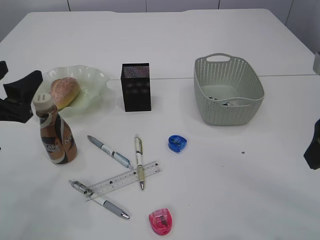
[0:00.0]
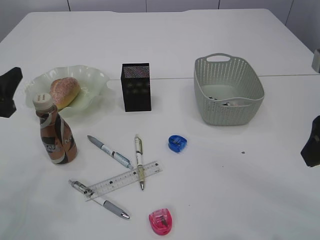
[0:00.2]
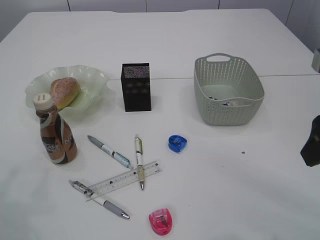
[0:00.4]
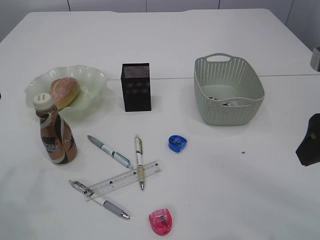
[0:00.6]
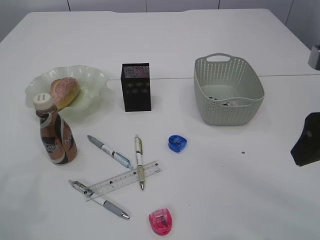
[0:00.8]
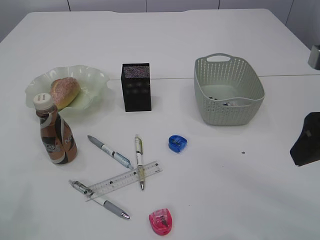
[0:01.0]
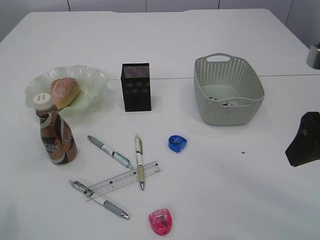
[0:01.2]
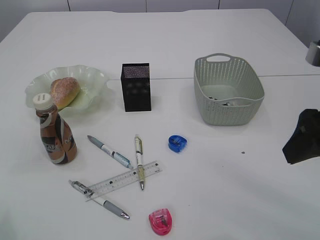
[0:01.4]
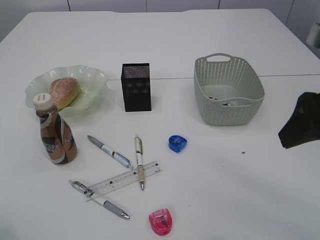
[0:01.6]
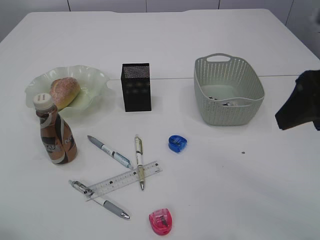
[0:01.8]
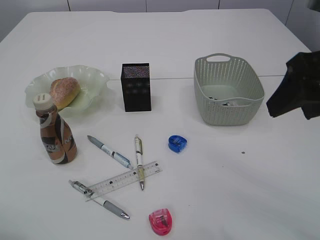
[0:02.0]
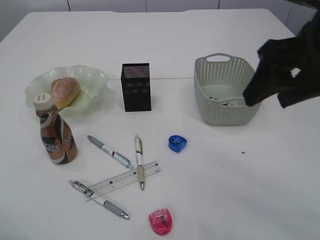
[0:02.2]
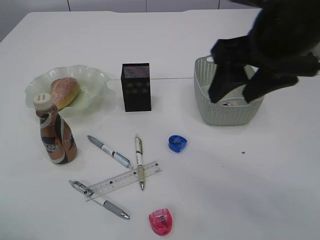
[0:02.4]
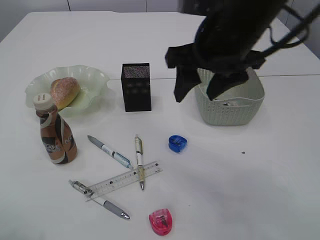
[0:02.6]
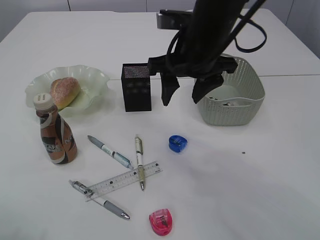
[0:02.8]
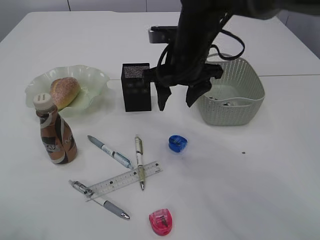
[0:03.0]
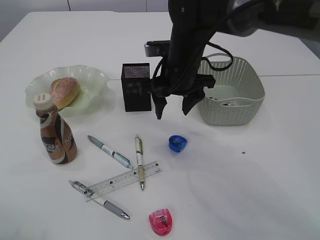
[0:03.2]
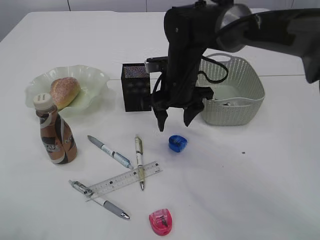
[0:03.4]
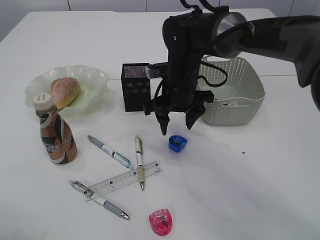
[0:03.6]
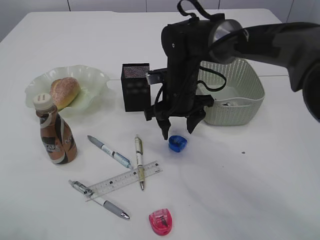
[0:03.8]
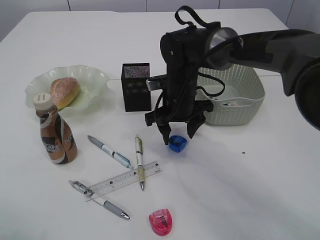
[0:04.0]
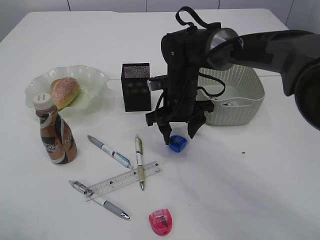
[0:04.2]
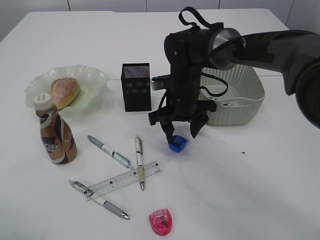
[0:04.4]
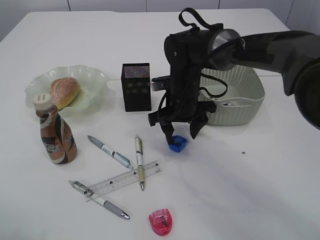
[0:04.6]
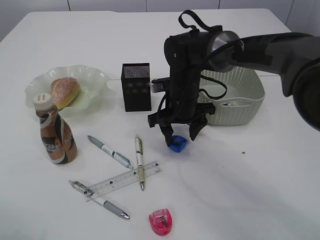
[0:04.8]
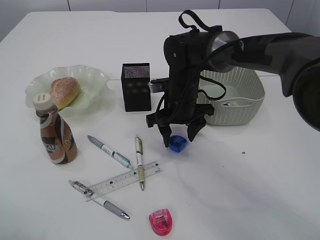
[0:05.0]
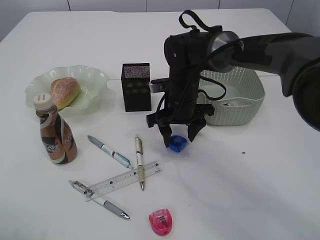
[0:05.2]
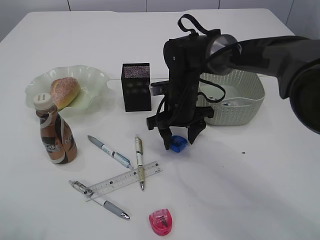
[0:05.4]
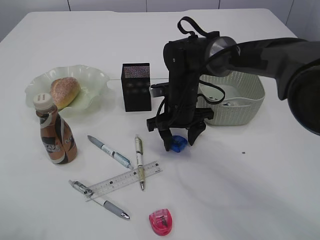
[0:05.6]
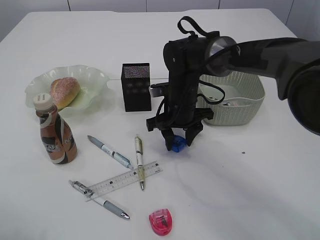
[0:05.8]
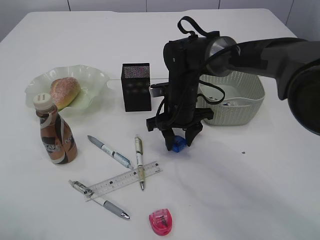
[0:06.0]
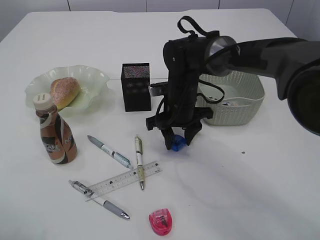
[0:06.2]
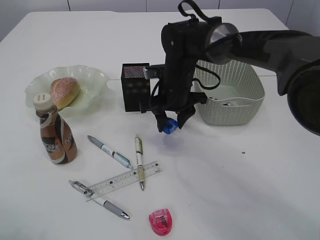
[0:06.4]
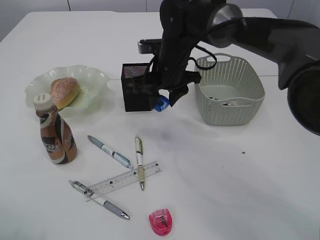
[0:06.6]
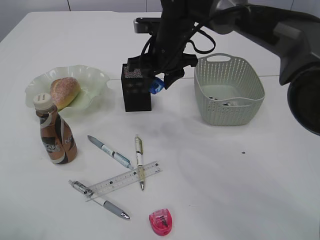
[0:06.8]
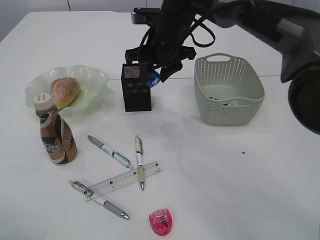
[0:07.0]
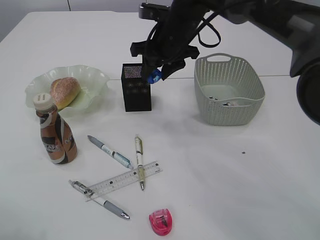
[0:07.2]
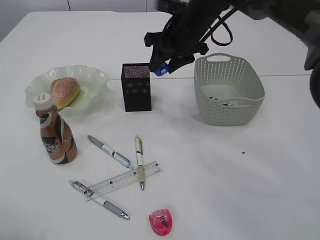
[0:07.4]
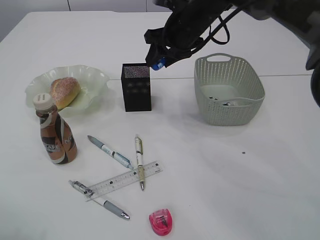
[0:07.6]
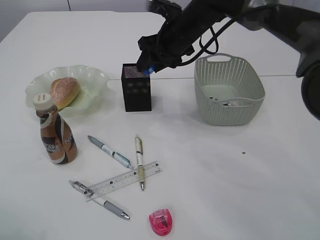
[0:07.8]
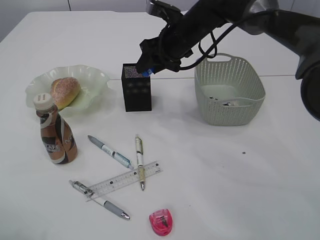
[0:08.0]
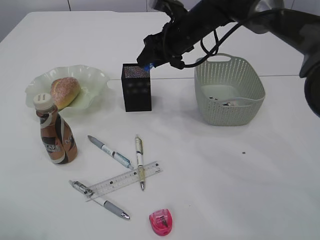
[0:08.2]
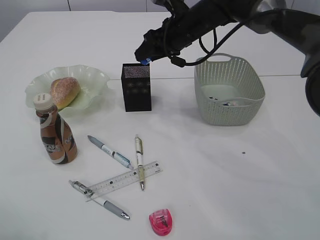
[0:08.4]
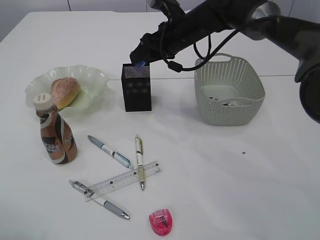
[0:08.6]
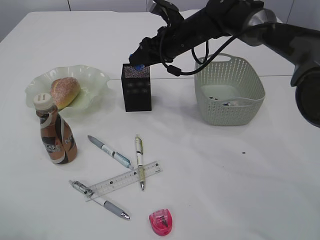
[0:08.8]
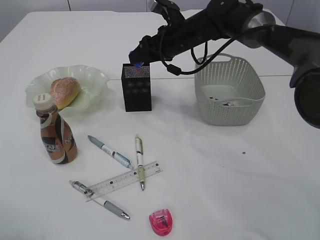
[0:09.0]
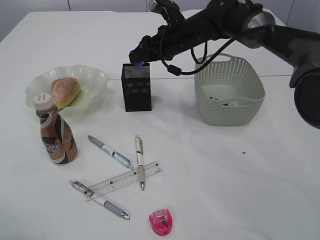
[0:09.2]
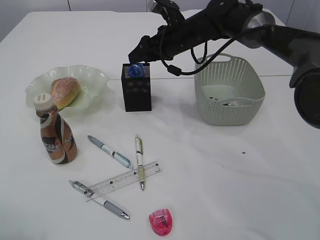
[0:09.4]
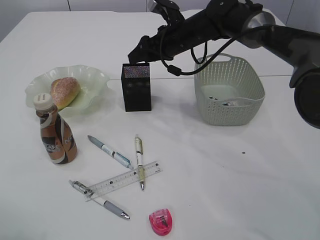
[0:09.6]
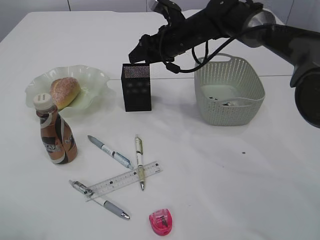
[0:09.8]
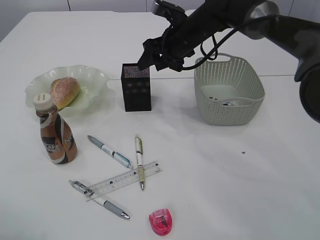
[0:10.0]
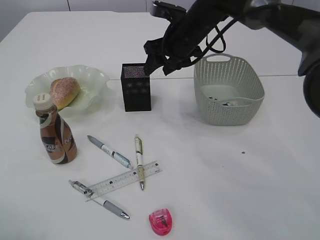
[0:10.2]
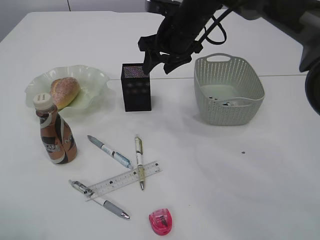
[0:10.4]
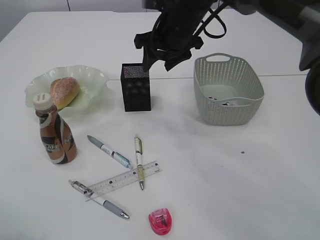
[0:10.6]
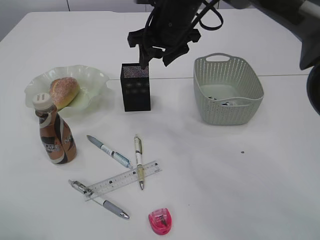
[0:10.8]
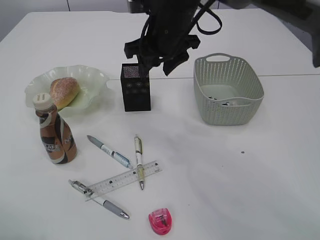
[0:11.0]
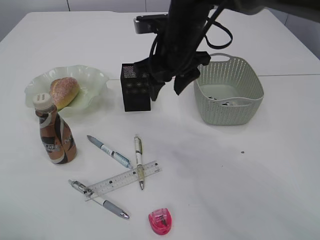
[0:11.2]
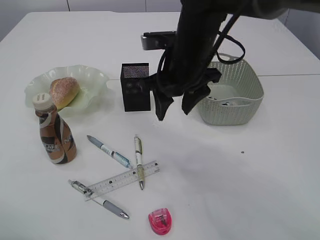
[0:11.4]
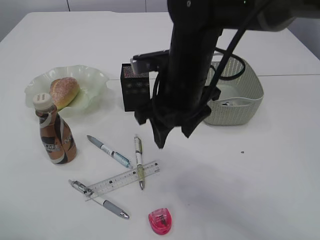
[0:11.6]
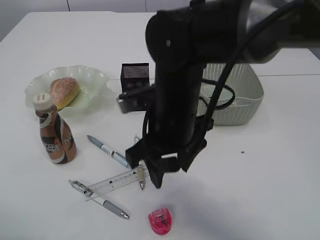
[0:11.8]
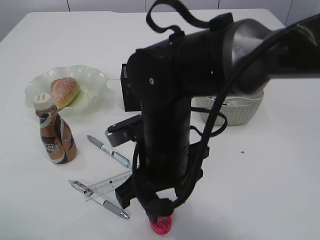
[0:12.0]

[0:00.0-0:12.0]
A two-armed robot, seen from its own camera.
Step, 0:00.0 to 0:06.6: pick up the blue pencil sharpener.
Step, 0:06.8 to 0:10.0: place the blue pencil sharpener into the pen holder.
0:00.0 to 0:01.6: The left gripper is displaced to the left and backward by approximately 10 cm.
0:01.6 to 0:03.0: The left gripper travels upward by roughly 10 cm. The right gripper travels forward and to the left by about 25 cm.
0:03.0 to 0:04.4: The right gripper goes about 10 cm downward.
0:04.4 to 0:06.0: There are only small adjustments of the grippers.
0:06.0 to 0:07.6: The right gripper goes approximately 15 cm upward and forward.
0:07.6 to 0:09.0: The right gripper moves some 5 cm.
0:09.0 to 0:10.4: The right gripper ends up roughly 5 cm from where it was.
0:10.4 to 0:12.0: The right gripper is displaced backward by some 20 cm.

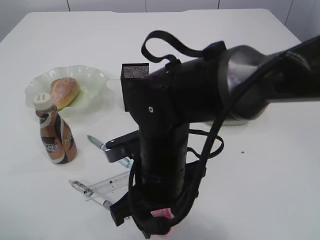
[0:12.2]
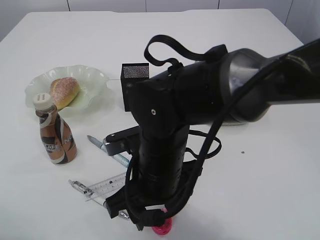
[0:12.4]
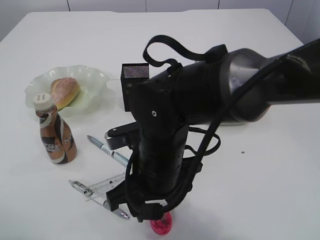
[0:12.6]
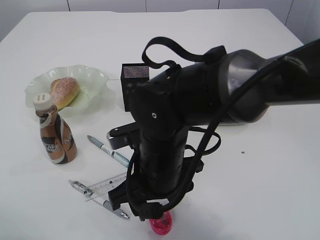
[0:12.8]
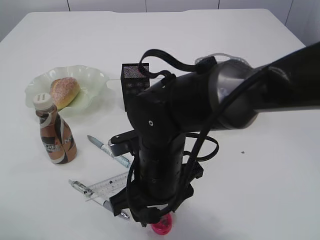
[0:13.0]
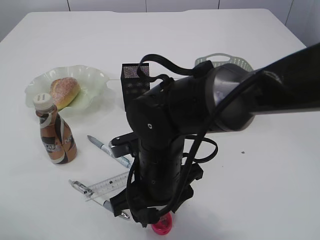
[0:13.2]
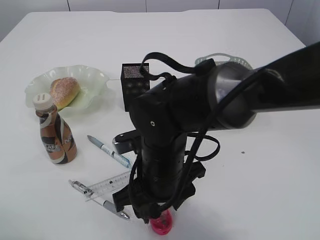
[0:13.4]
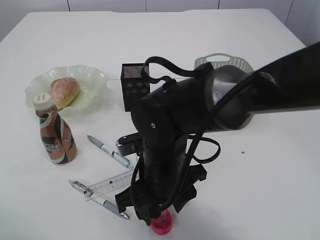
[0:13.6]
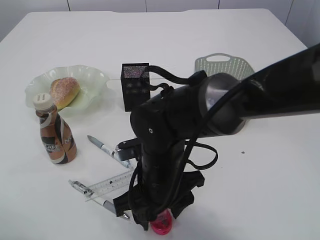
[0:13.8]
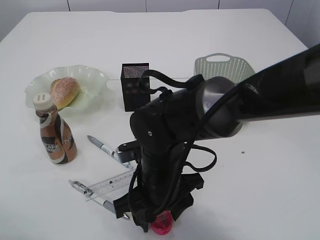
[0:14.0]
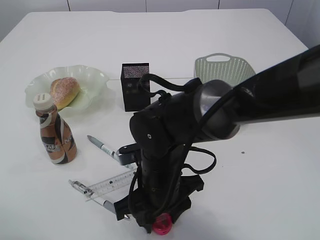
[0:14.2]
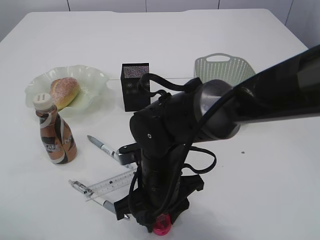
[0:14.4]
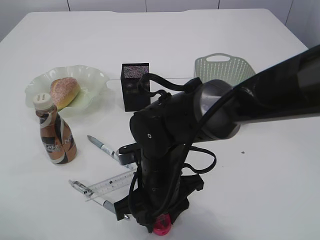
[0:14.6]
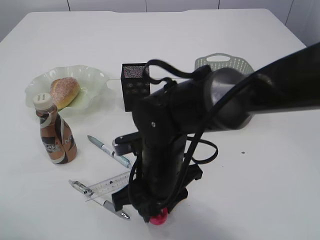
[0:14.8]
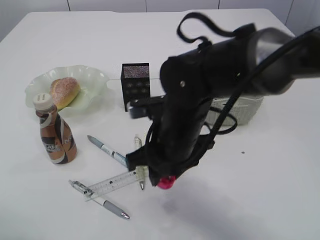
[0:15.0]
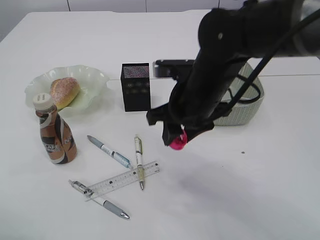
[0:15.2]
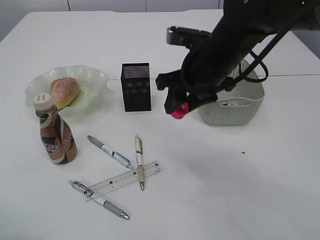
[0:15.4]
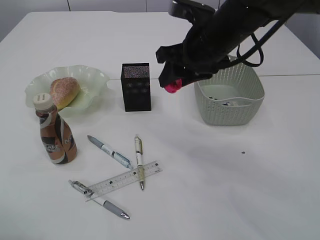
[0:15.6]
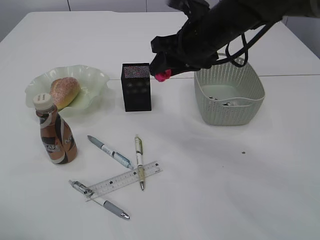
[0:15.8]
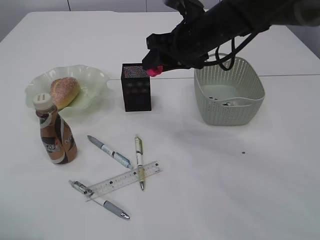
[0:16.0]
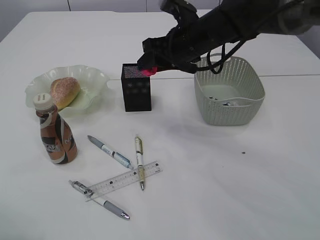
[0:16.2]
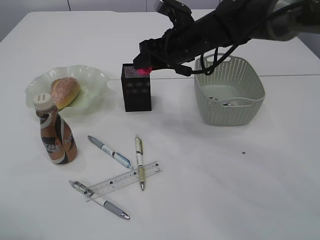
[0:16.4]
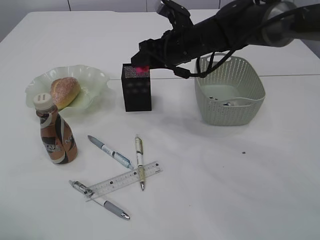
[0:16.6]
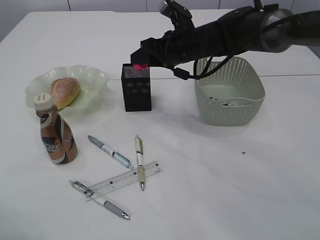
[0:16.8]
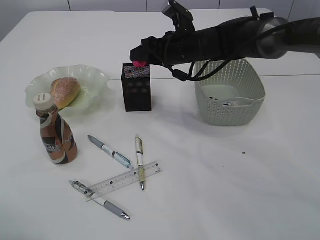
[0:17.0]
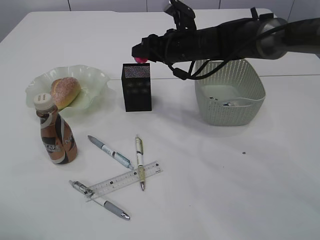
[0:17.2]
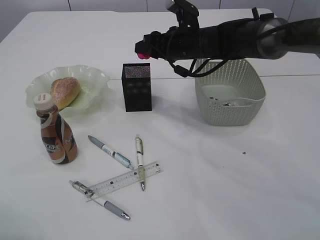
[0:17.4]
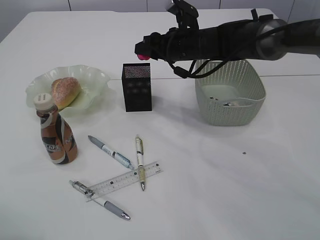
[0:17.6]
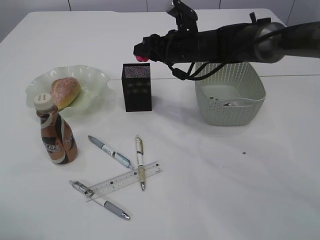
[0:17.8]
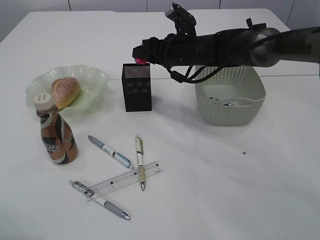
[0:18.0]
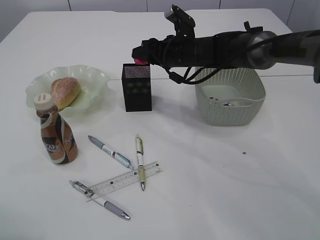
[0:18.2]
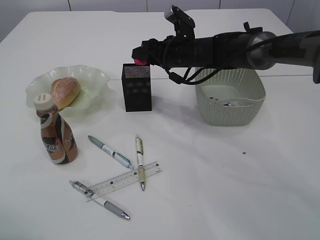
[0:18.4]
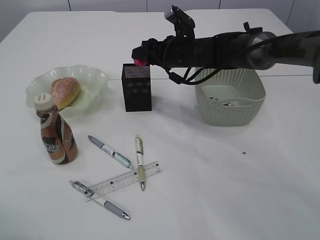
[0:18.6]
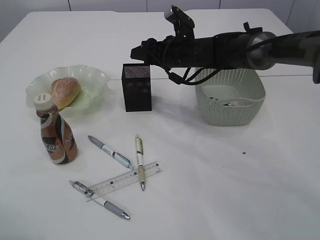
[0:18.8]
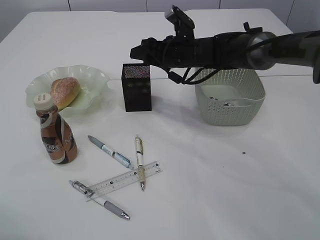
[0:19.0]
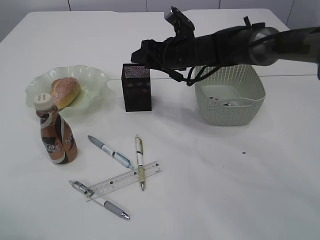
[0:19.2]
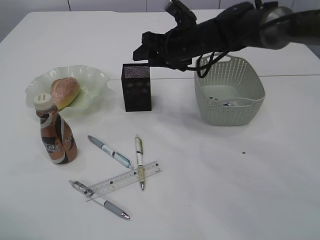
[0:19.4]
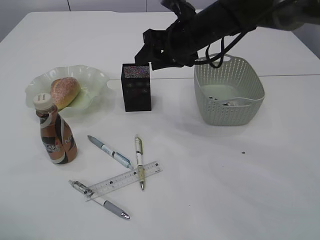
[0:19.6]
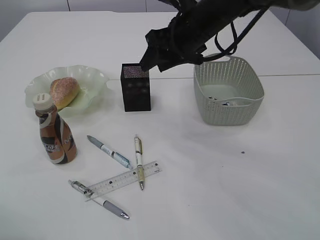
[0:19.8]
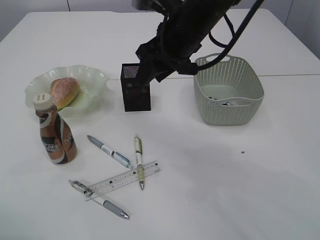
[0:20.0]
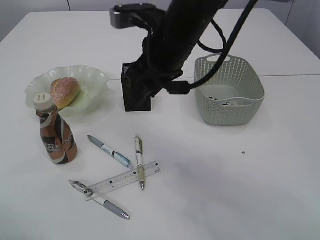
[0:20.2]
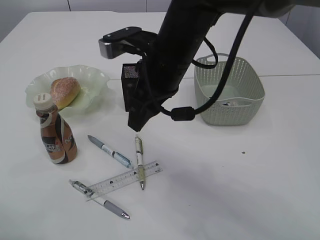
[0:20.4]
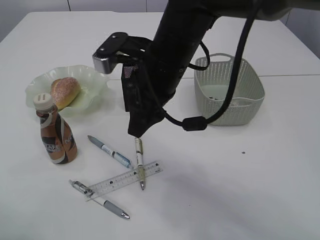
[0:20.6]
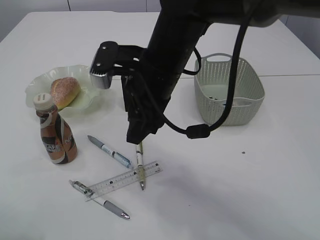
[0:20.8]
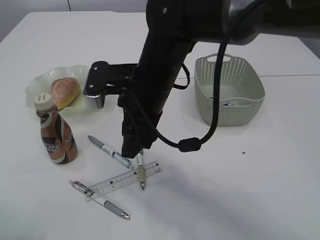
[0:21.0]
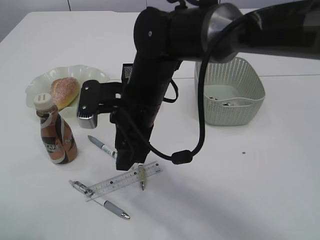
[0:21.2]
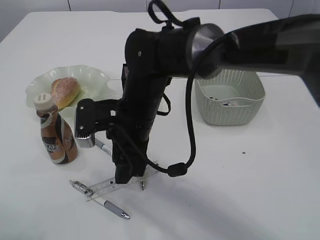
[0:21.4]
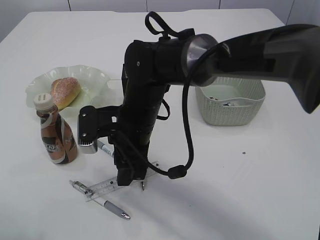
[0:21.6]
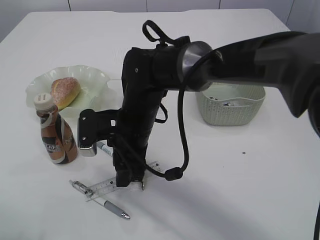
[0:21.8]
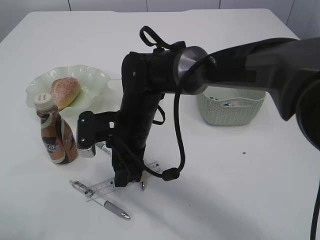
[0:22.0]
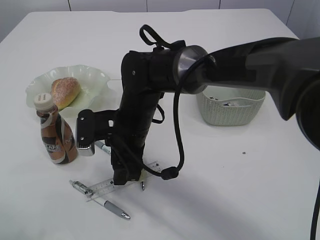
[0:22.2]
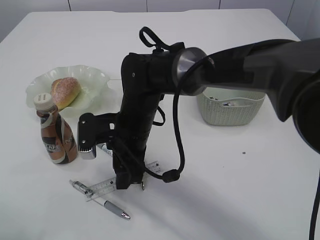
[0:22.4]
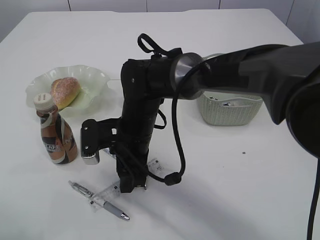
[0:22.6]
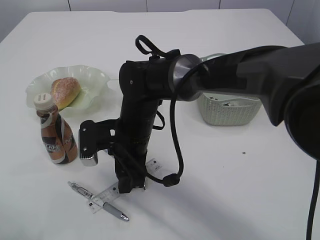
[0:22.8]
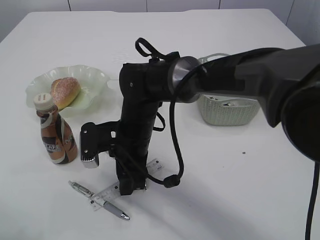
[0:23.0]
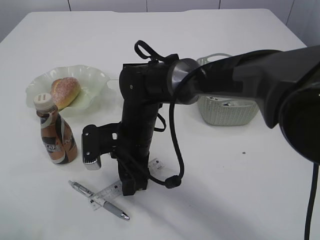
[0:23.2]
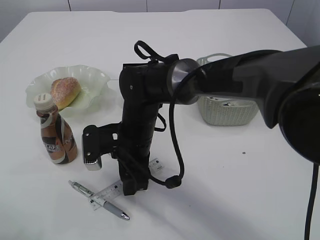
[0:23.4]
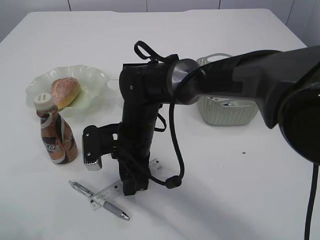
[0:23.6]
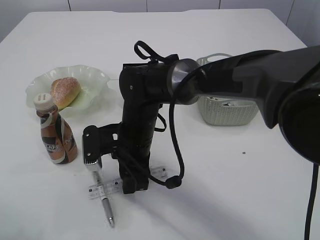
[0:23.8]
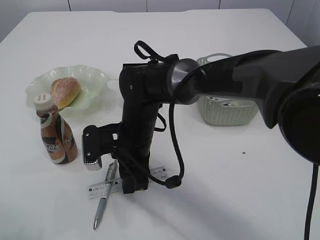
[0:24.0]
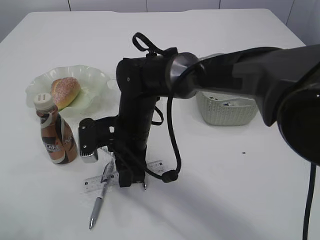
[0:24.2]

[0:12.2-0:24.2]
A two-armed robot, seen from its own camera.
Step, 0:12.2 to 0:15.2: pick up the red pencil sharpener.
Step, 0:15.4 to 0:19.2: place the red pencil sharpener into the pen holder.
0:12.2 to 0:13.8: There are only small adjustments of the grippers.
0:13.8 to 0:15.2: The right gripper moves upward, forward and to the right, about 15 cm.
0:15.2 to 0:16.6: The right gripper shifts some 15 cm forward.
0:16.6 to 0:18.2: The right gripper shifts by about 5 cm.
0:18.2 to 0:19.8: The right gripper goes some 10 cm upward and backward.
0:19.8 to 0:21.2: The right gripper heads to the left, backward and downward, covering about 15 cm.
0:21.2 to 0:22.6: The right gripper heads downward, covering approximately 10 cm.
0:22.6 to 0:24.2: Both grippers stay about where they are.
